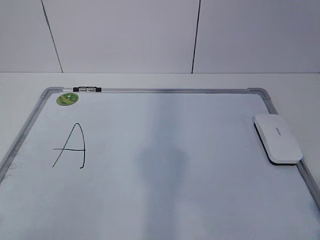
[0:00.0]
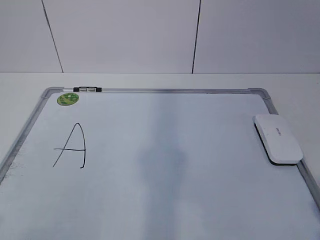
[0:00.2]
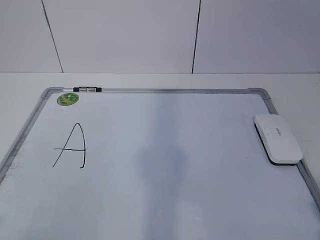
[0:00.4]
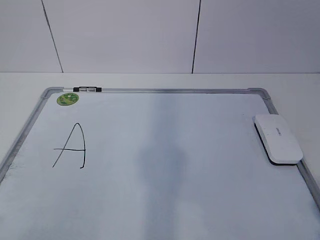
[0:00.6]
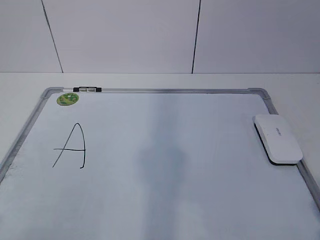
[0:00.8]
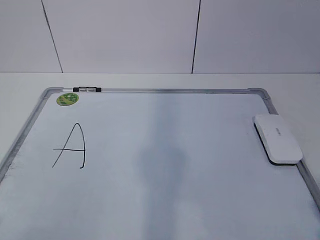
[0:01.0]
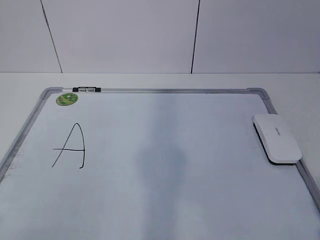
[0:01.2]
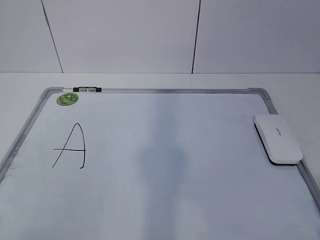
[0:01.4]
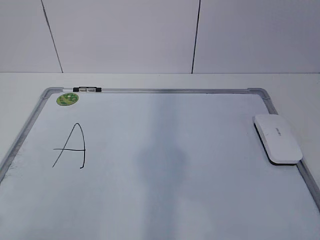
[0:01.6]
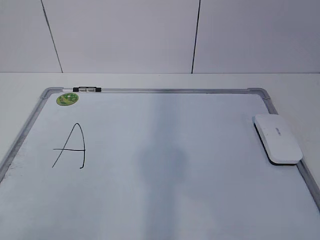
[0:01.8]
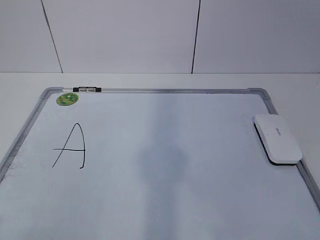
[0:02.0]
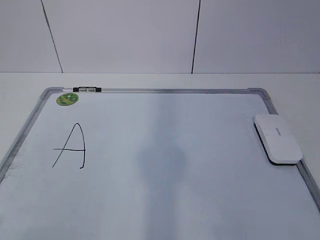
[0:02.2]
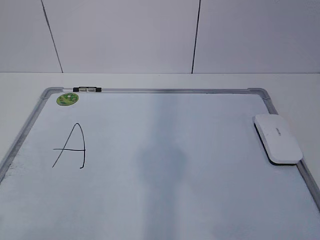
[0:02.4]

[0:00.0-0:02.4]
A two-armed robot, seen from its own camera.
Task of the whole recording: pick up the eraser on the blackboard and erase the letter "a".
0:00.0 to 0:01.2: Both grippers stay about where they are.

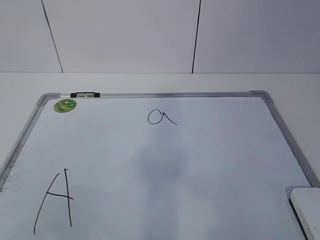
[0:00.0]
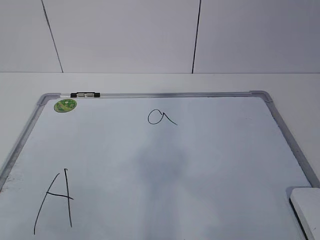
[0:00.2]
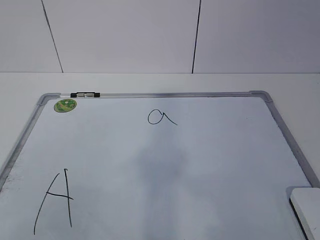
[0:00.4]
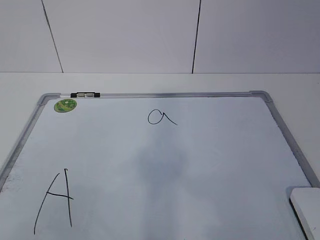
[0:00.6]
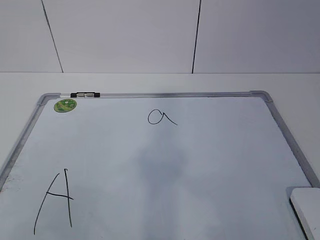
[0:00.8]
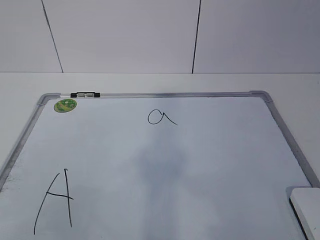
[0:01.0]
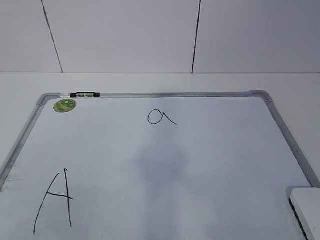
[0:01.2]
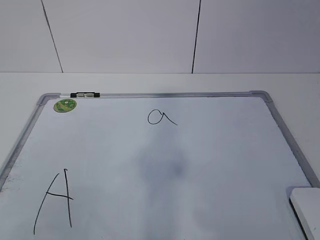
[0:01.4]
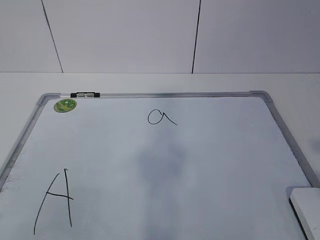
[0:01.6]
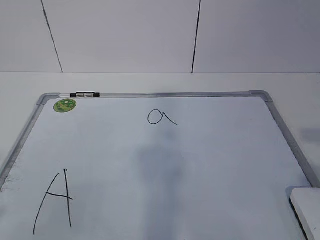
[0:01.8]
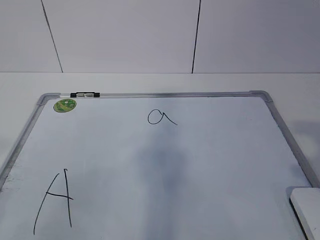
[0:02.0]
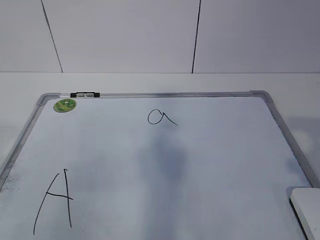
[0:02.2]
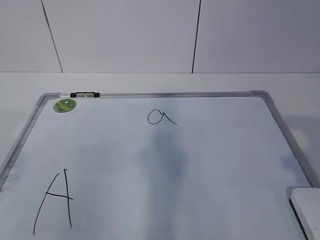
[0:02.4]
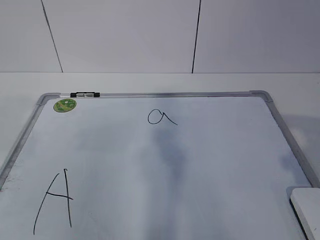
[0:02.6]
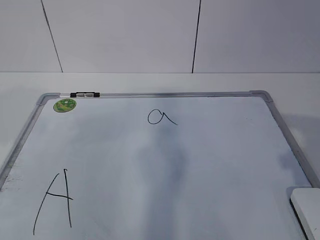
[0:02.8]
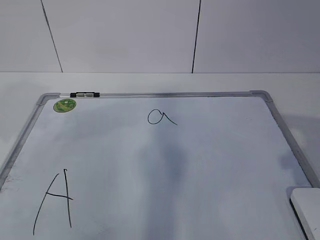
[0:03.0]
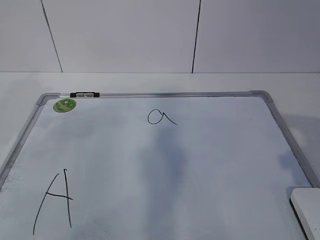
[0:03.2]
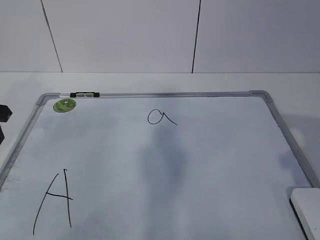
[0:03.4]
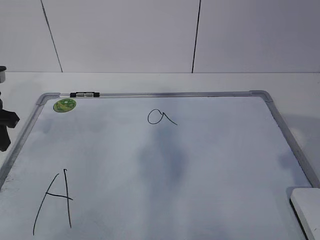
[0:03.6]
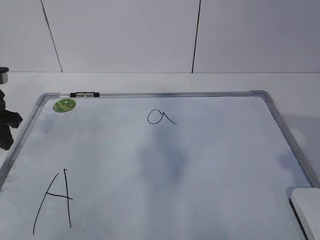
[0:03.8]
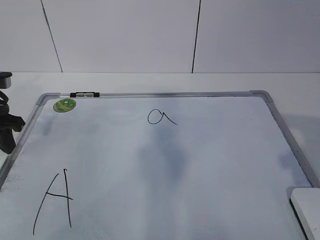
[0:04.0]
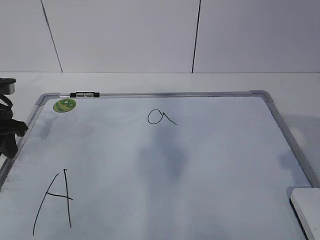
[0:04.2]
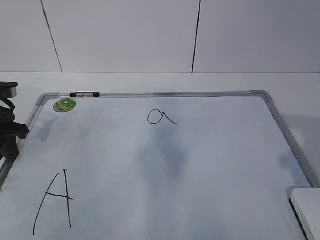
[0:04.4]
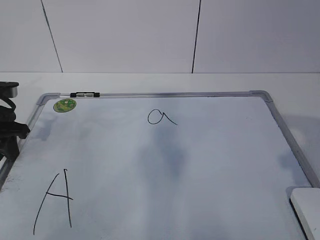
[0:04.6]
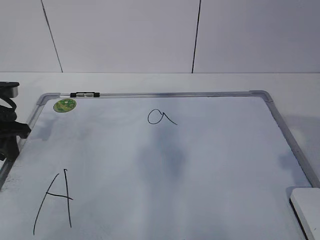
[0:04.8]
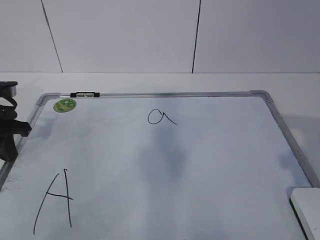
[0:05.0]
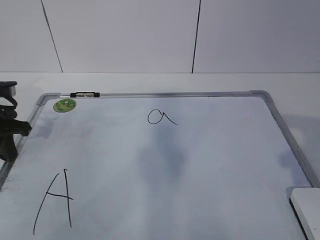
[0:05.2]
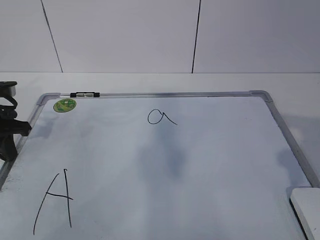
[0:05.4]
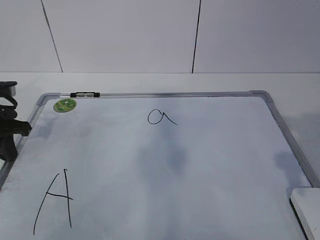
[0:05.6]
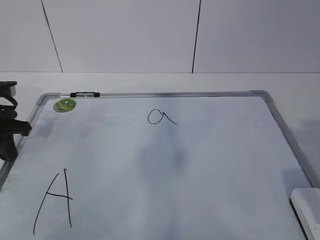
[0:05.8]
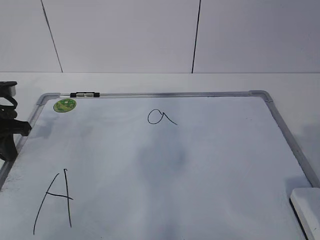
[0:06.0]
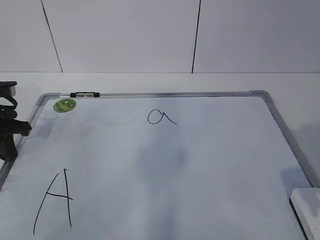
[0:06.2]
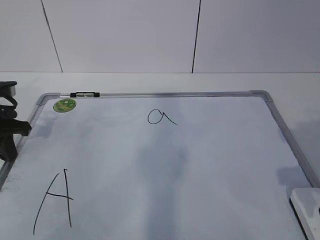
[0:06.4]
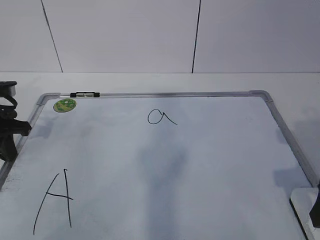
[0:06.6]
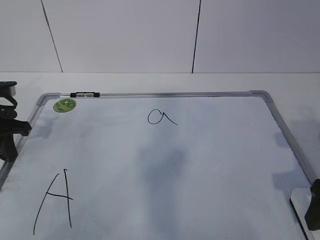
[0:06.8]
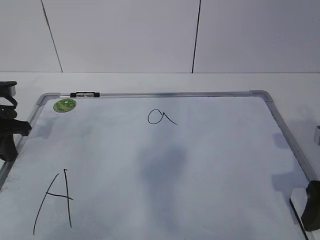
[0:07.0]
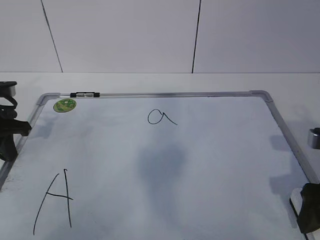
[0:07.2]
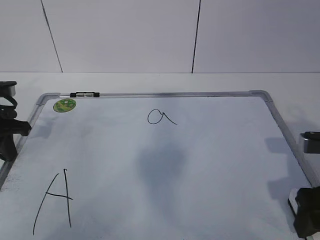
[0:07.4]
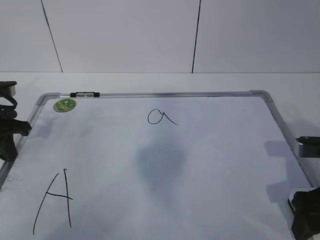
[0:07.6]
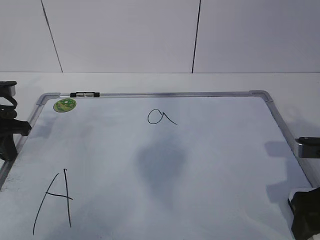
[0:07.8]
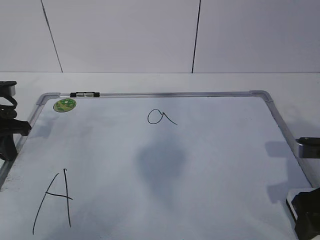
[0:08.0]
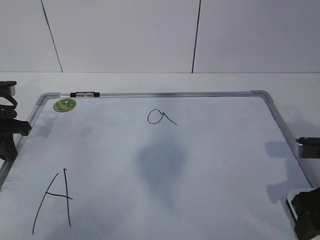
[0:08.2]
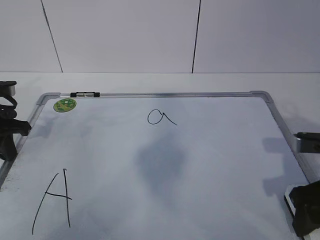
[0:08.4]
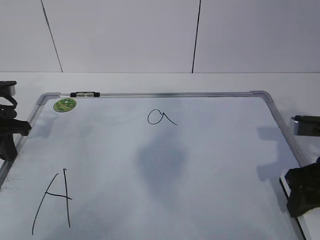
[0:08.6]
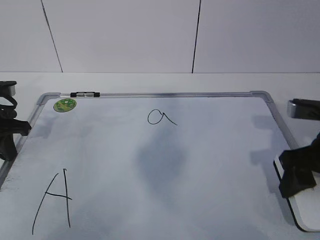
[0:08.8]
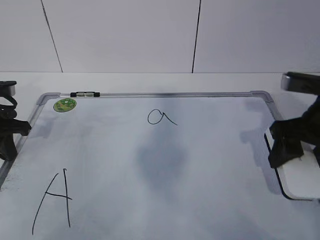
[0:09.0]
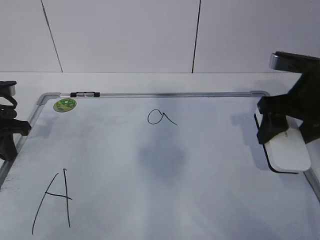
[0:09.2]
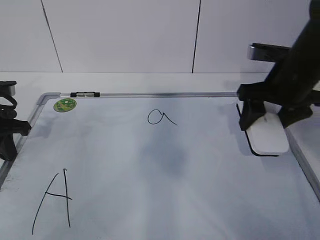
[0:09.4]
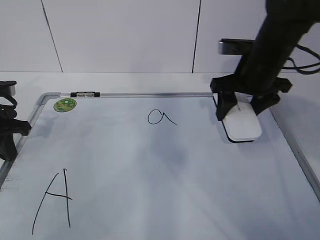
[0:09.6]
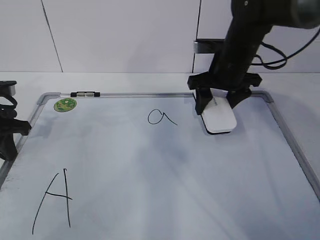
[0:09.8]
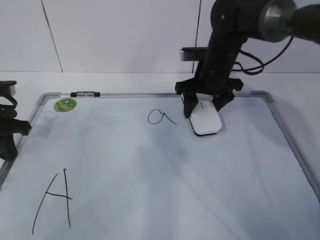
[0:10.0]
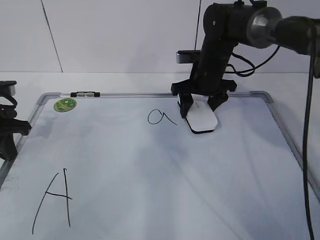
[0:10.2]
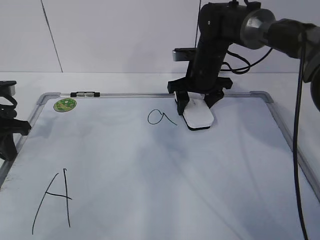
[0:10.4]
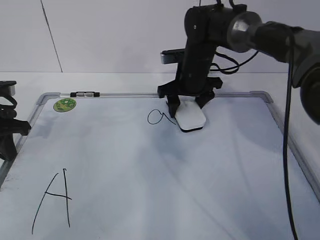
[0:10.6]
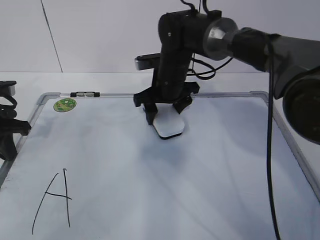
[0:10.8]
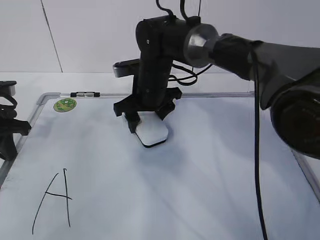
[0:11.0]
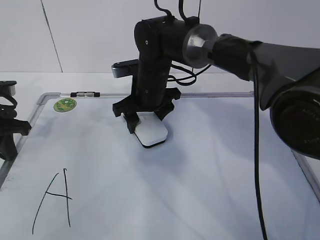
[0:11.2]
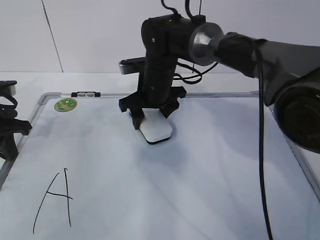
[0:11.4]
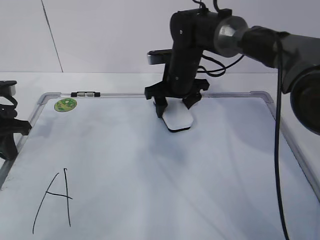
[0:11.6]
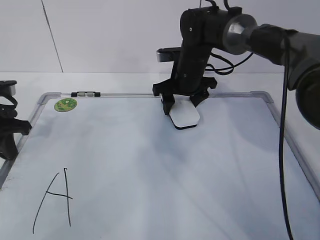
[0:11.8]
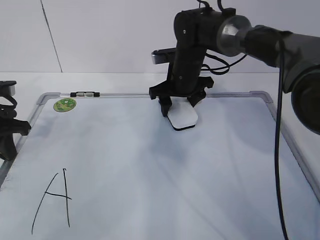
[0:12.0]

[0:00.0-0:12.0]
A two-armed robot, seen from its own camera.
Task of the whole recording: pick up the eraser on the blackboard and erase the letter "a".
Step, 0:06.8 to 0:10.8: Erase the letter a with your right hand.
0:01.6 to 0:03.0: The right gripper moves forward, about 10 cm.
0:03.0 to 0:04.4: The left gripper travels downward and forward by about 15 cm.
0:04.4 to 0:06.0: The left gripper closes its fingers.
0:06.0 to 0:07.6: The right gripper heads downward and forward, covering some 10 cm.
0:07.6 to 0:09.0: The right gripper moves forward and upward, approximately 10 cm, and closes up.
0:09.0 to 0:10.4: The right gripper shifts about 25 cm forward and to the left.

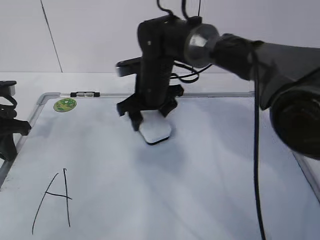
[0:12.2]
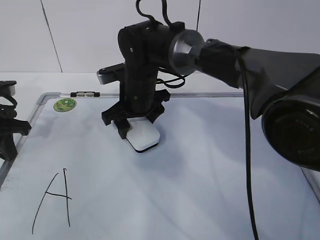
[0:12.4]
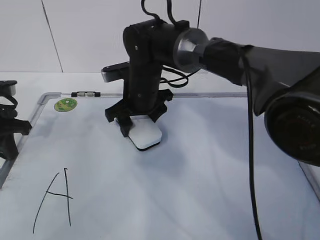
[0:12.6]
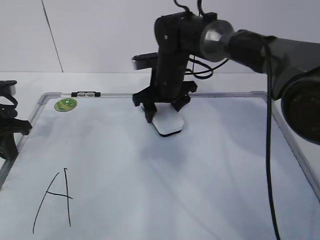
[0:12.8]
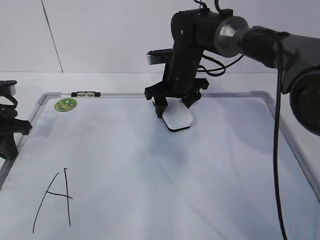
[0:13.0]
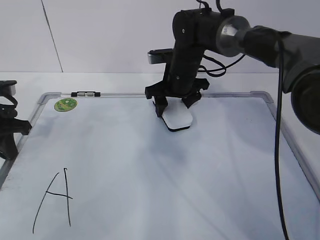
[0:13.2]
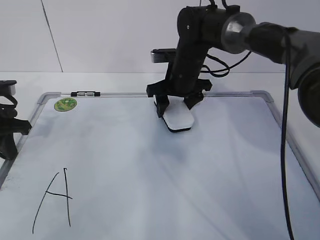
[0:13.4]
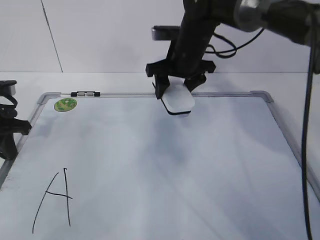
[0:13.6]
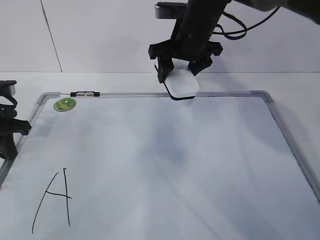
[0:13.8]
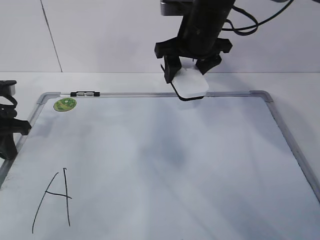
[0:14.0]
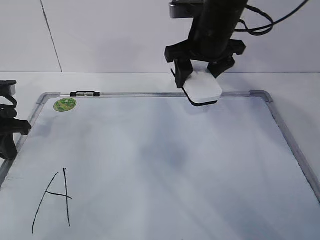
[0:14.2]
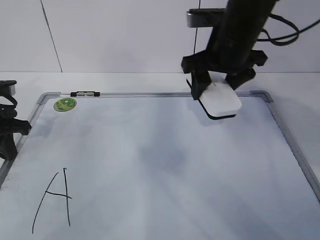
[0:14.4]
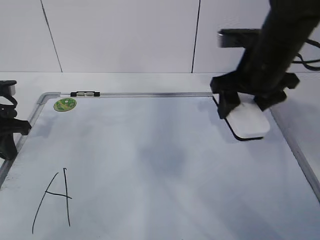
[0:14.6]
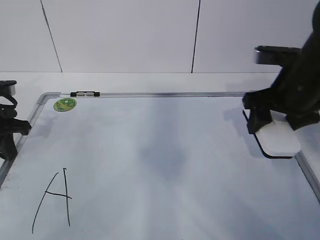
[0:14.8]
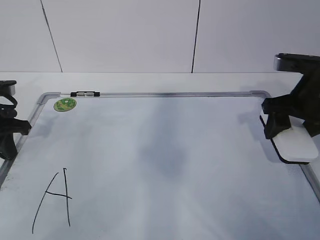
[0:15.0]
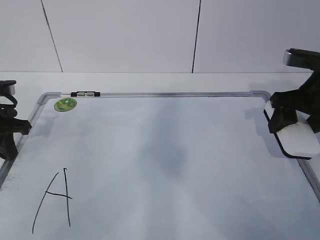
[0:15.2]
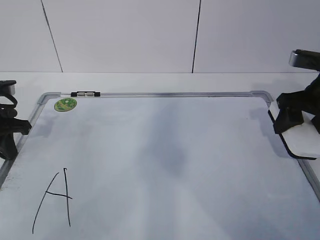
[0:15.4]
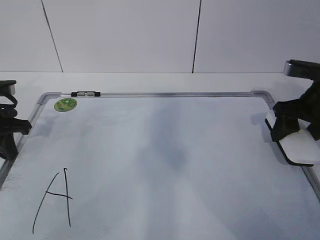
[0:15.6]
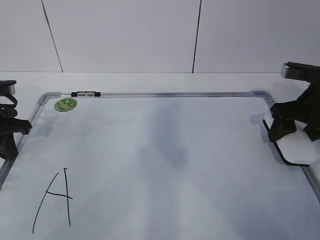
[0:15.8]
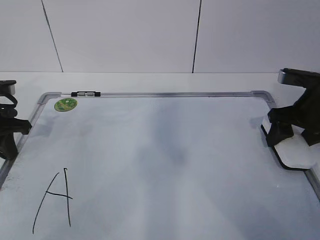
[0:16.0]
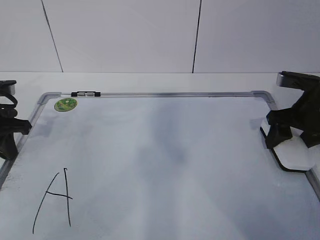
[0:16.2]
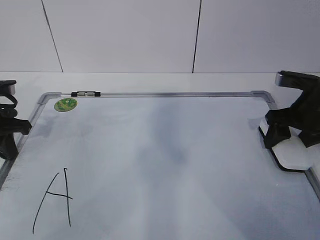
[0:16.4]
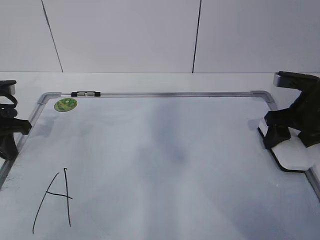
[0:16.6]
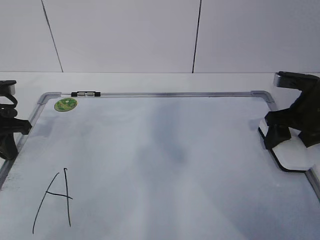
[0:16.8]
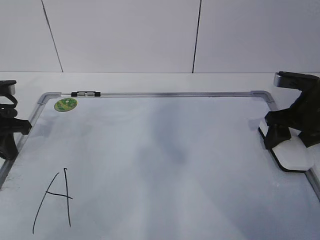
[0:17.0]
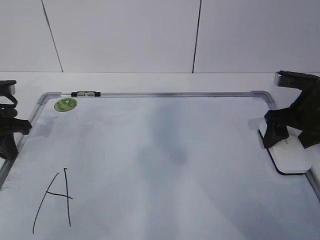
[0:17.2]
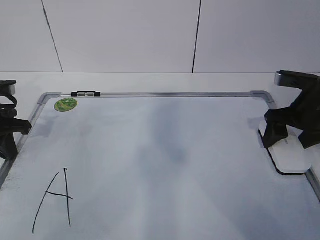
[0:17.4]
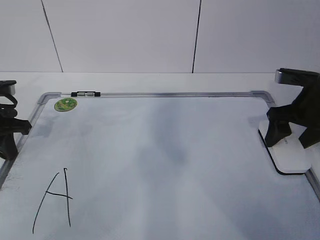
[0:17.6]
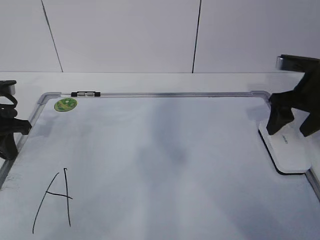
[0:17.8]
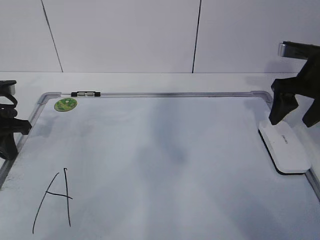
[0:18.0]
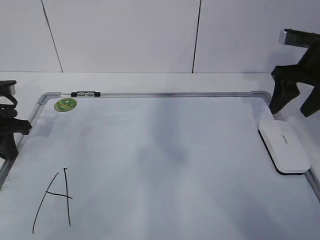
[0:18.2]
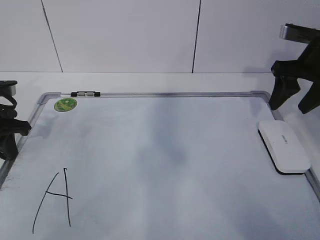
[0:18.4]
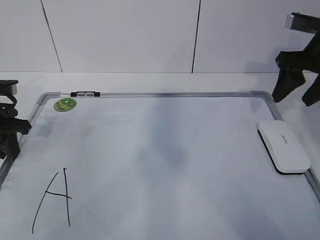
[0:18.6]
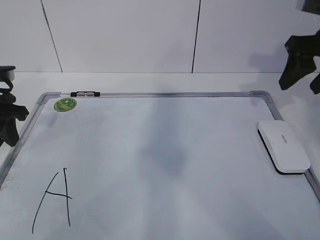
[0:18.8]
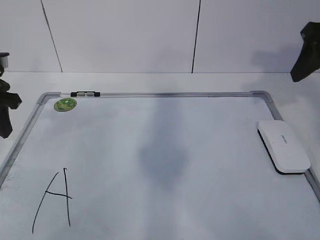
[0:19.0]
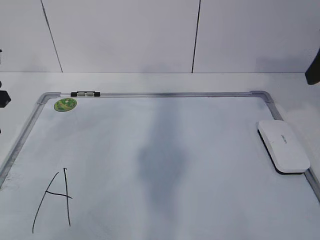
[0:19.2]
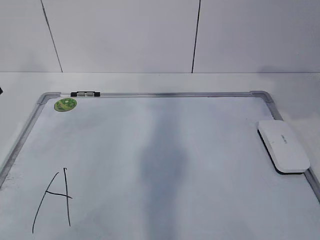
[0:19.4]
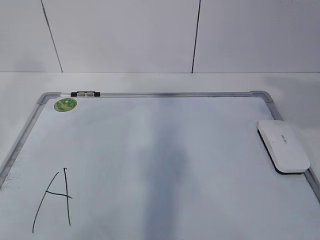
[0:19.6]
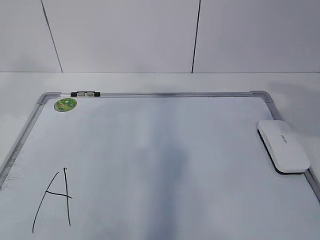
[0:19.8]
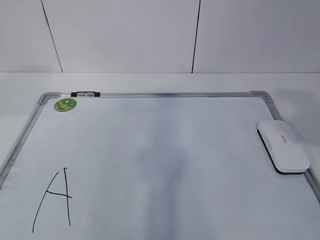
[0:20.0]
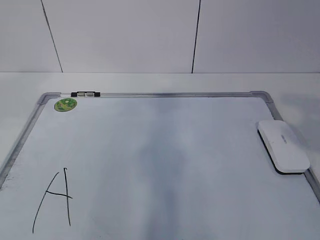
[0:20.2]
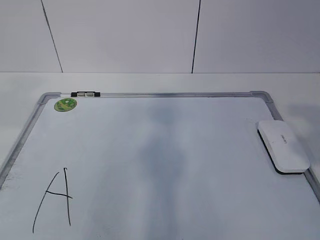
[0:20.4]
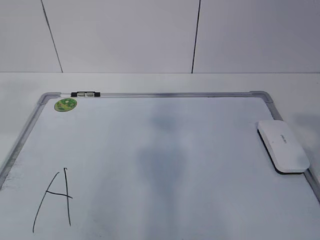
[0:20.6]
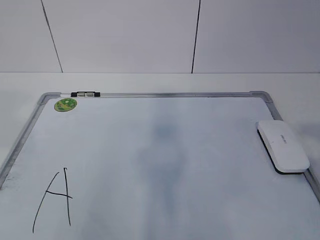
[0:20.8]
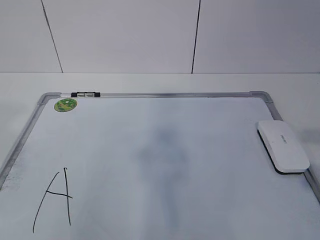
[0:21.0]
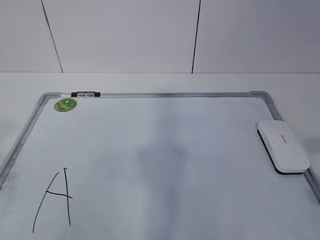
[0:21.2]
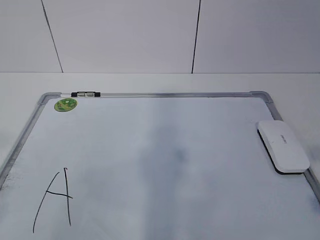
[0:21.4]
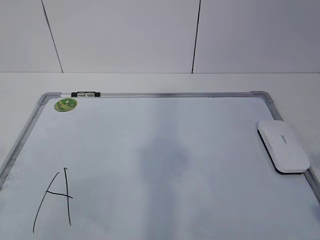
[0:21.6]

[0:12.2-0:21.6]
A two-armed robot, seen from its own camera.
Task of the whole recording: pick up the eraser on the blackboard and erase the letter "a".
Step, 0:12.2 to 0:14.2: Put down the eraser with your right hand.
0:12.2 to 0:13.8: The right gripper heads upward and to the right, covering about 10 cm.
0:13.8 to 0:15.4: The right gripper shifts approximately 25 cm to the right and backward.
0:15.4 to 0:17.0: The grippers make only small movements.
0:17.0 to 0:18.4: The right gripper heads upward, covering some 10 cm, and opens, then closes again.
0:18.4 to 0:20.0: The left gripper goes approximately 25 cm upward and backward, and opens up. The right gripper travels backward and upward by roughly 25 cm.
